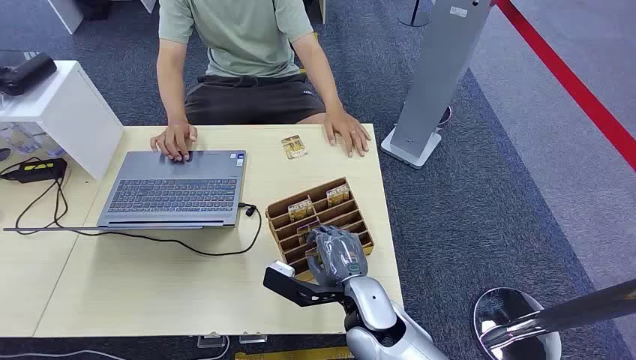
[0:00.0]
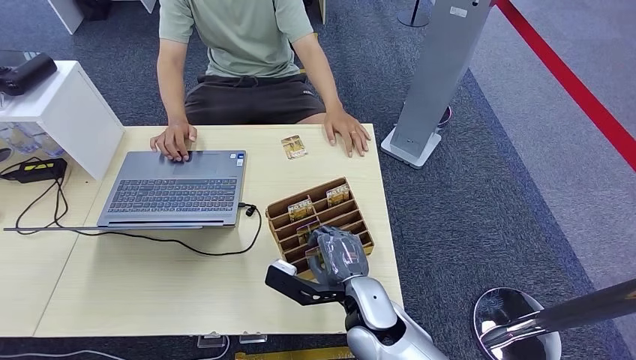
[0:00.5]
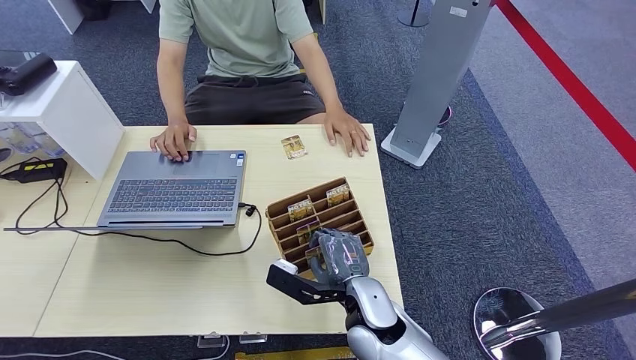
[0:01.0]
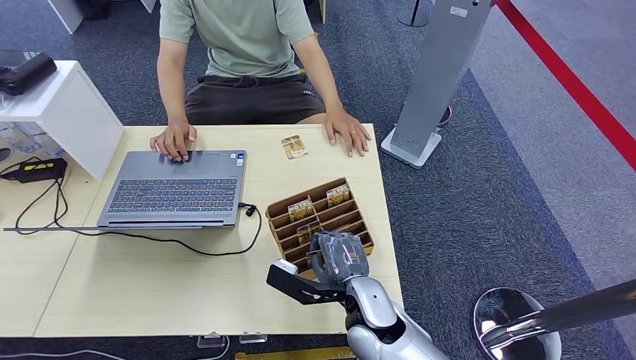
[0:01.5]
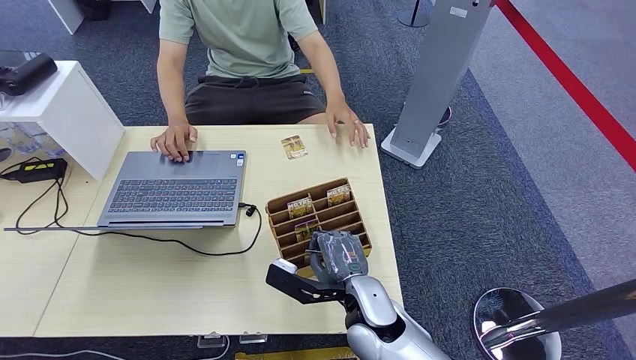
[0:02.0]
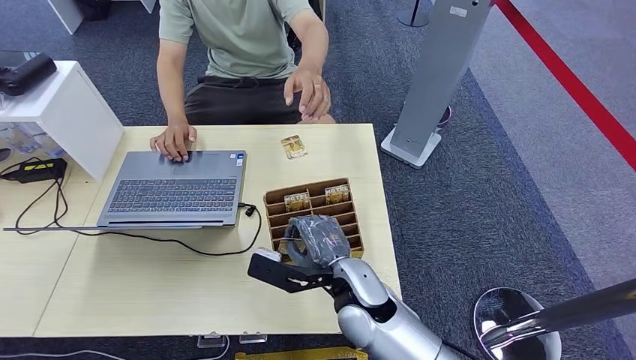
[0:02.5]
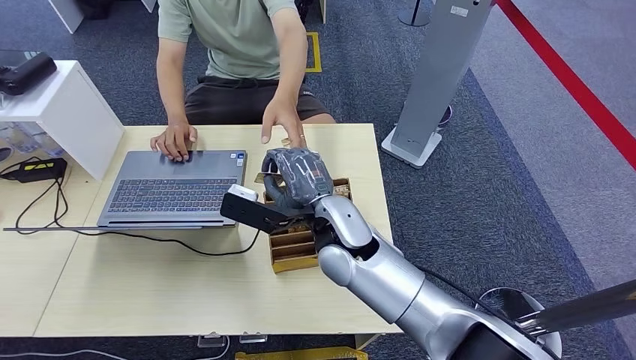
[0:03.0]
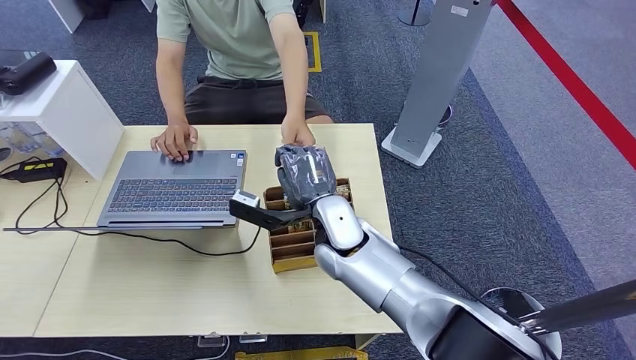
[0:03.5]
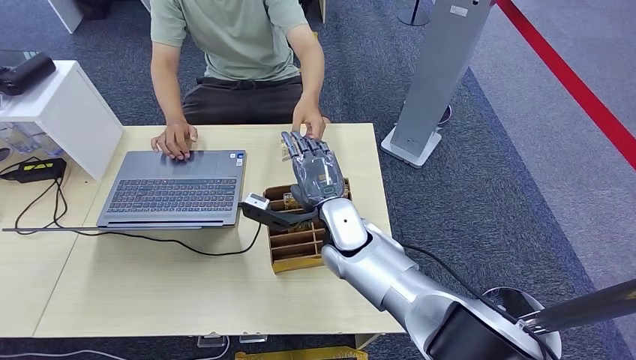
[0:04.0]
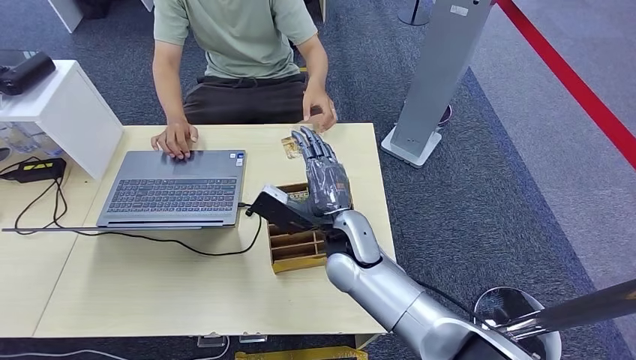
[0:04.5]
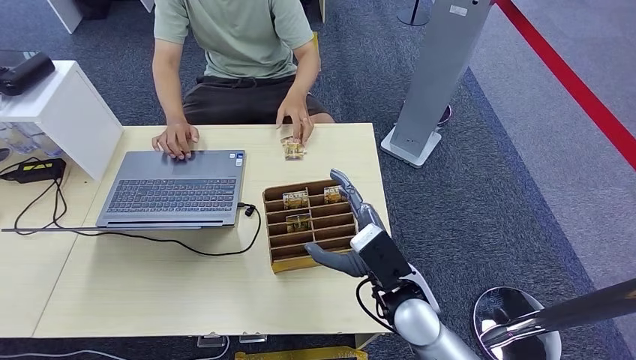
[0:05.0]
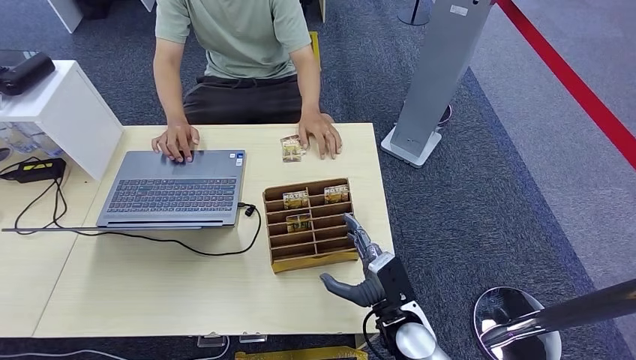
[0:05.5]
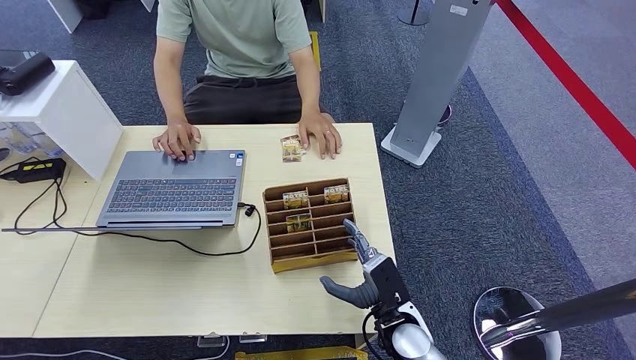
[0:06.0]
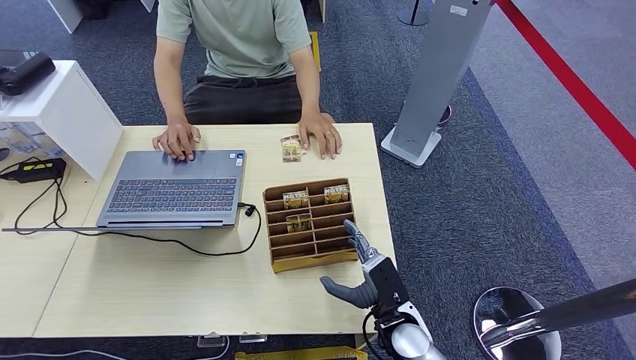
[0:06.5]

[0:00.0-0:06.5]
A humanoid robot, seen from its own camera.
Task of the whole recording: Pick up the card and hand it over to the target person.
Step, 0:00.0 to 0:02.0: Pick up the key card from the card box.
Step, 0:02.5 to 0:06.5: Hand the key card to the target.
0:02.0 to 0:04.5: The right hand moves up and down over some 10 cm, changing direction 2 times.
0:04.5 to 0:06.5: The right hand goes approximately 20 cm downward.

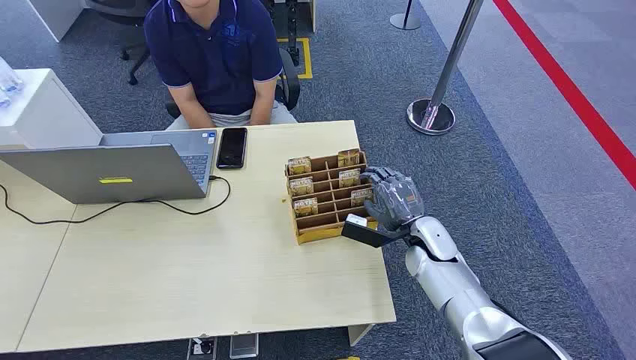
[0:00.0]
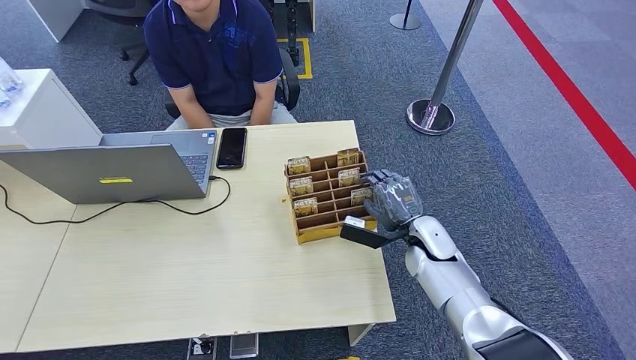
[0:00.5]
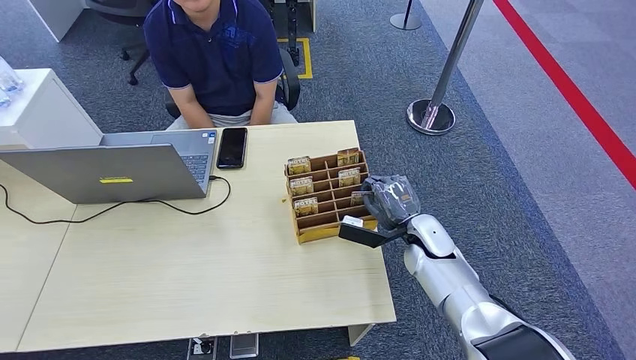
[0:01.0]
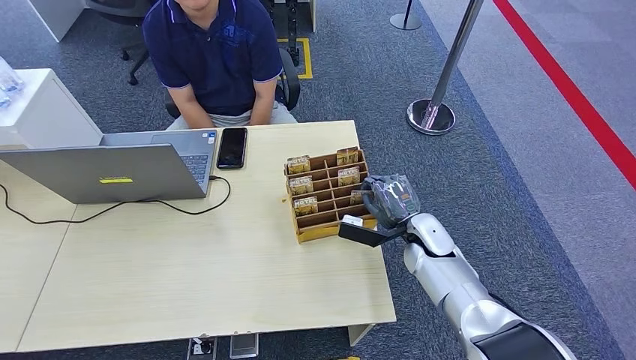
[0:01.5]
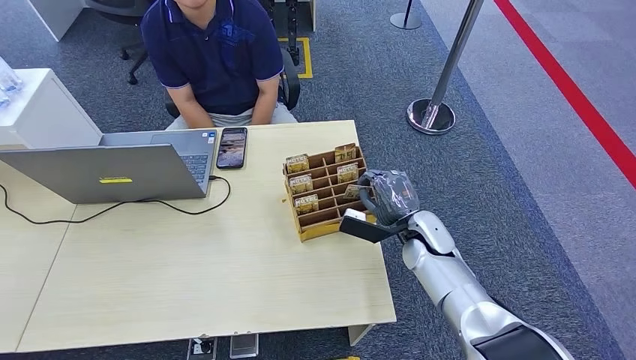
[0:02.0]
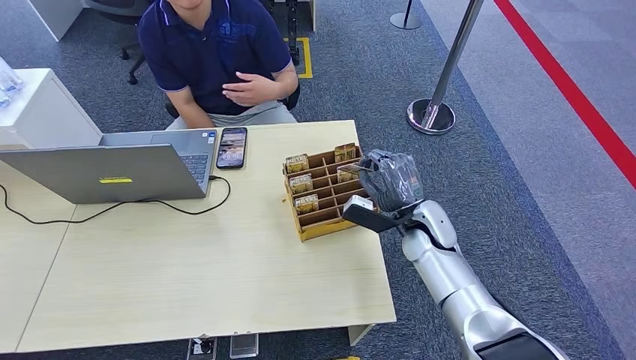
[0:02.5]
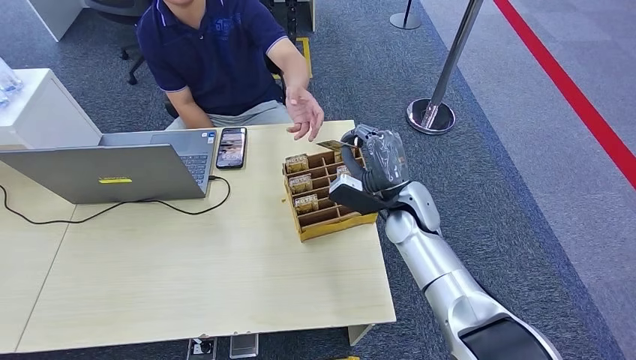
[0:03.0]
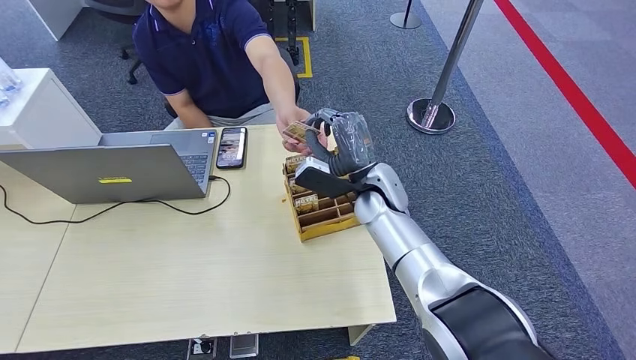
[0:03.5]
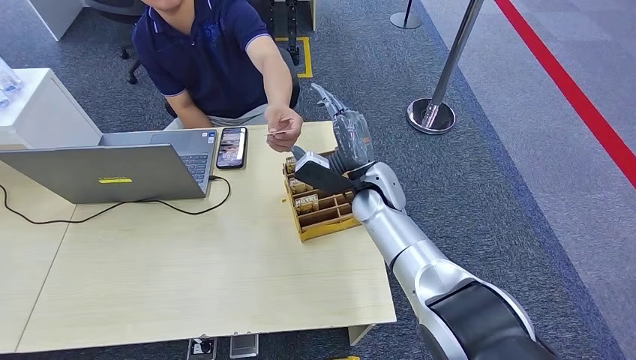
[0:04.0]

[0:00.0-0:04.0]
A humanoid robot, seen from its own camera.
Task of the whole recording: Pick up the card and hand it over to the target person.
Step, 0:00.0 to 0:02.5: Pick up the key card from the card box.
Step, 0:03.0 to 0:04.0: Hand the key card to the target.
0:02.0 to 0:04.0: The right hand goes some 15 cm to the left, upward and forward.
